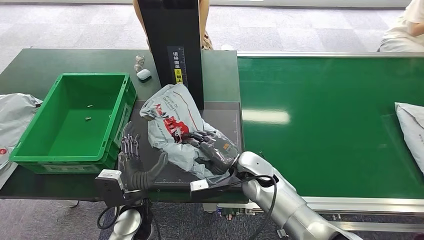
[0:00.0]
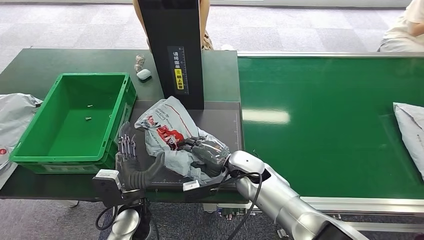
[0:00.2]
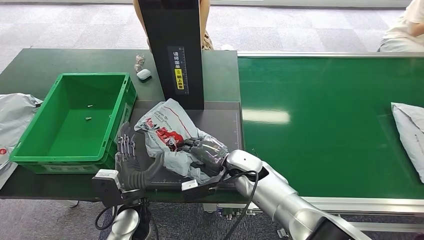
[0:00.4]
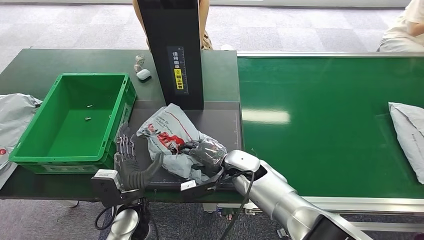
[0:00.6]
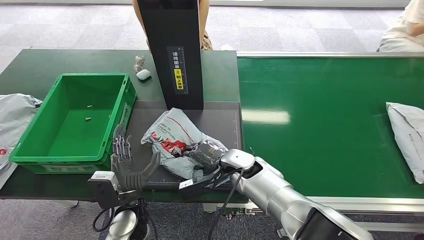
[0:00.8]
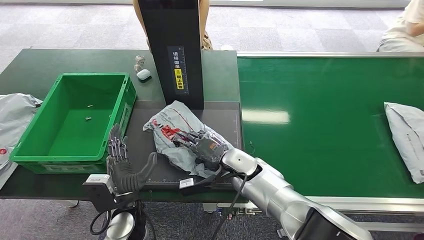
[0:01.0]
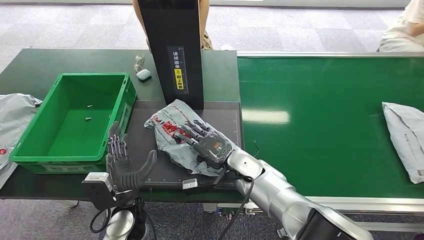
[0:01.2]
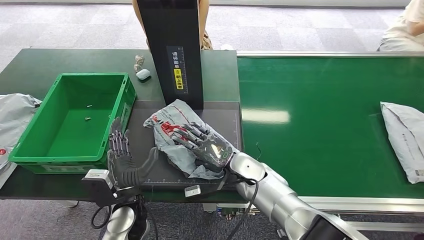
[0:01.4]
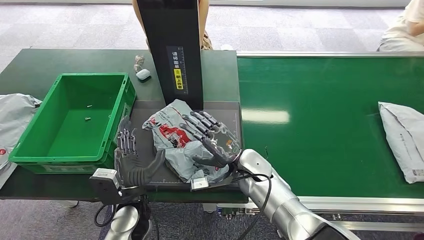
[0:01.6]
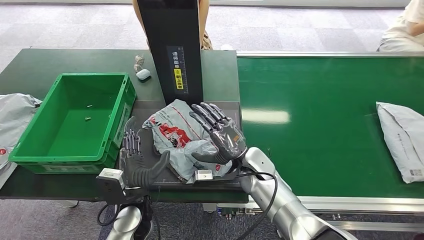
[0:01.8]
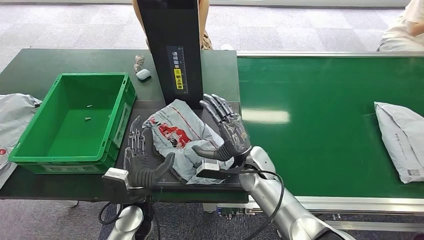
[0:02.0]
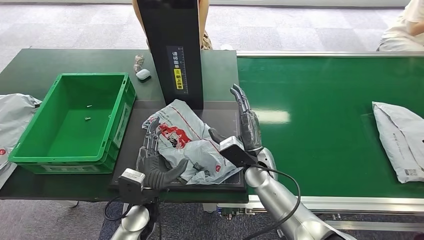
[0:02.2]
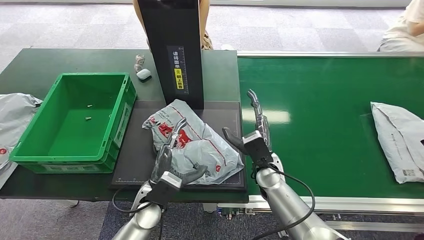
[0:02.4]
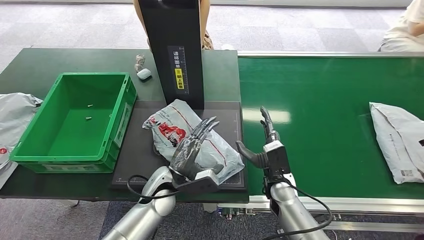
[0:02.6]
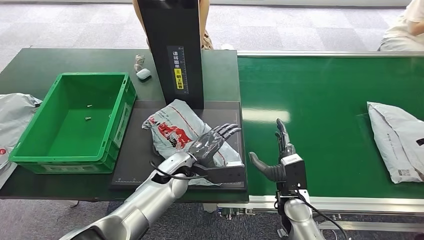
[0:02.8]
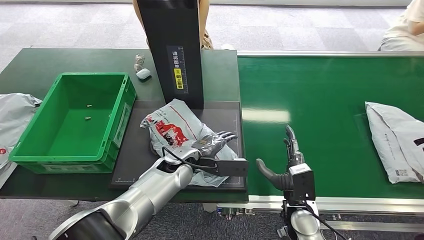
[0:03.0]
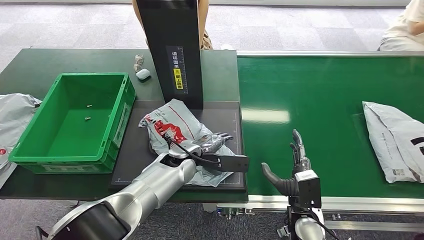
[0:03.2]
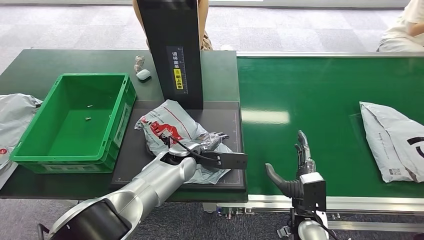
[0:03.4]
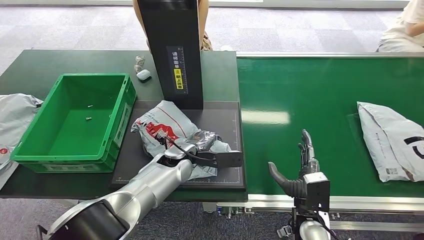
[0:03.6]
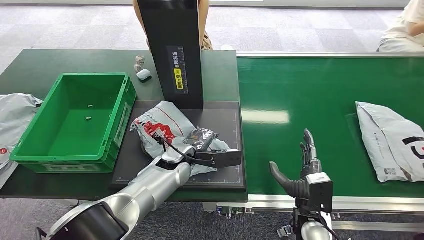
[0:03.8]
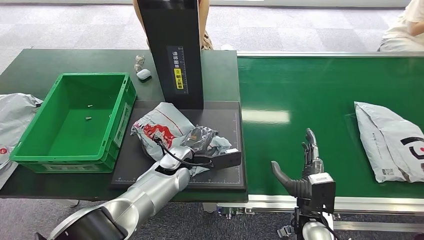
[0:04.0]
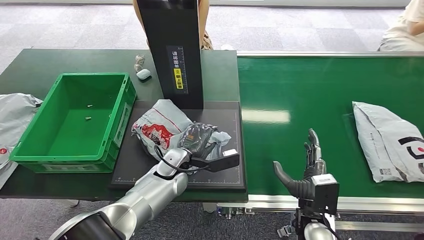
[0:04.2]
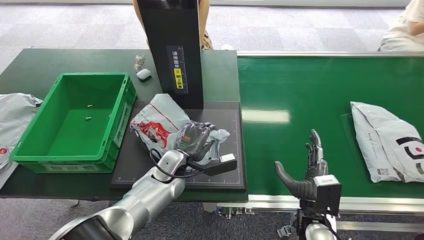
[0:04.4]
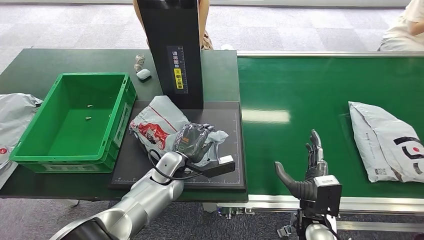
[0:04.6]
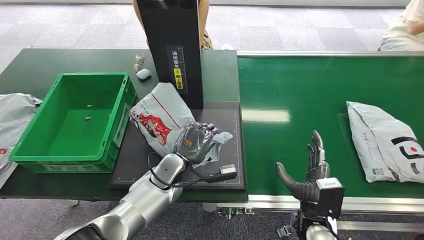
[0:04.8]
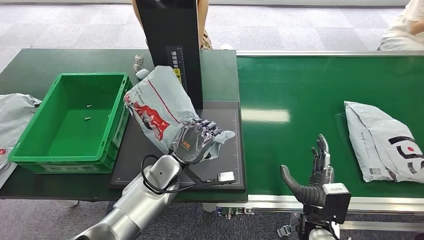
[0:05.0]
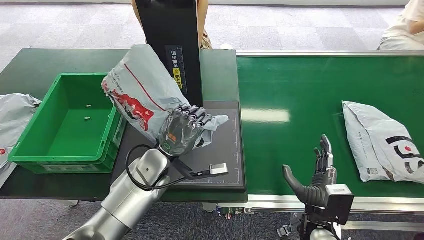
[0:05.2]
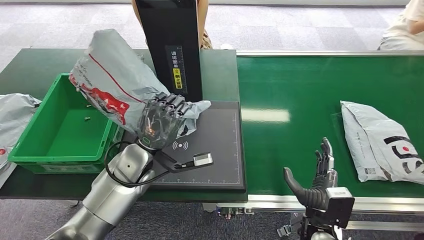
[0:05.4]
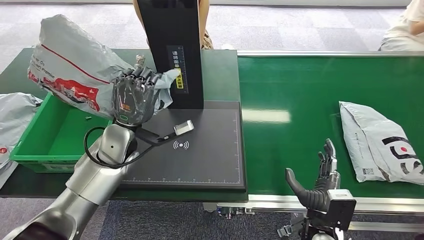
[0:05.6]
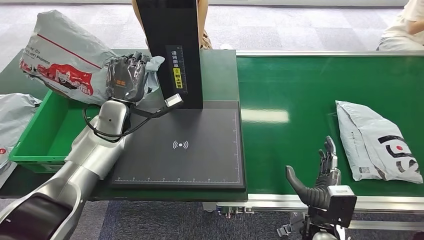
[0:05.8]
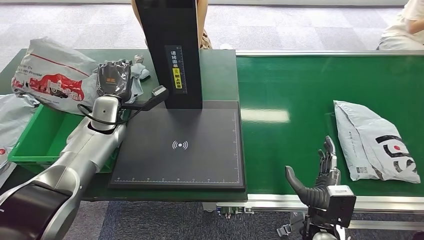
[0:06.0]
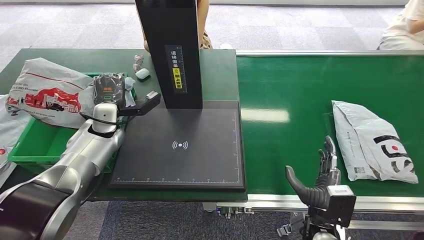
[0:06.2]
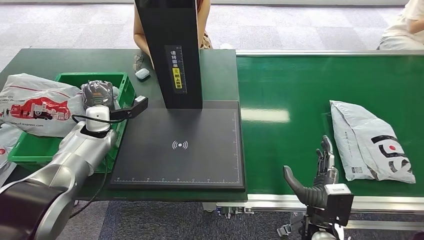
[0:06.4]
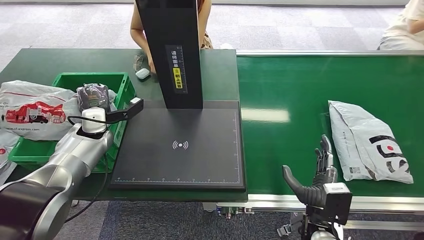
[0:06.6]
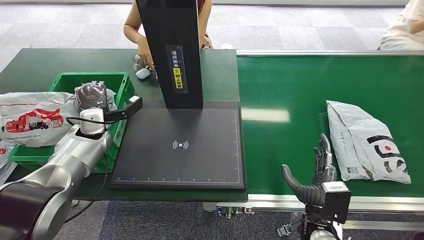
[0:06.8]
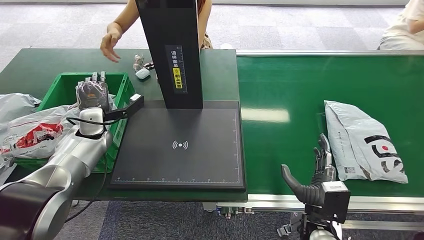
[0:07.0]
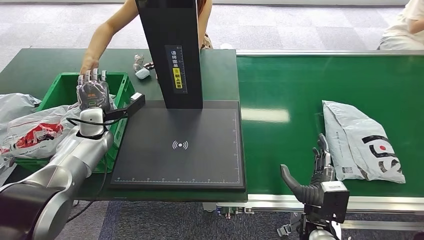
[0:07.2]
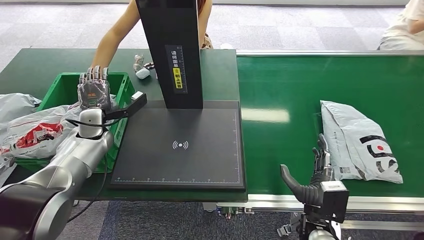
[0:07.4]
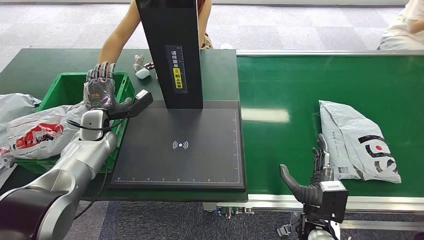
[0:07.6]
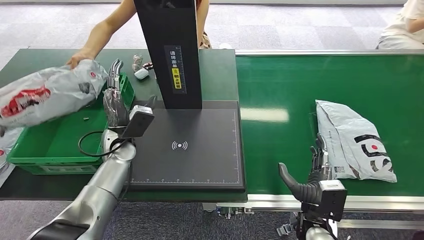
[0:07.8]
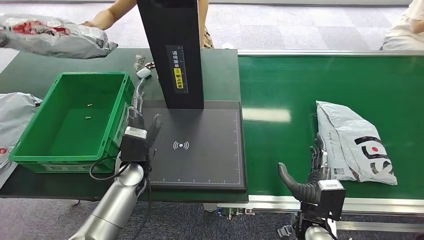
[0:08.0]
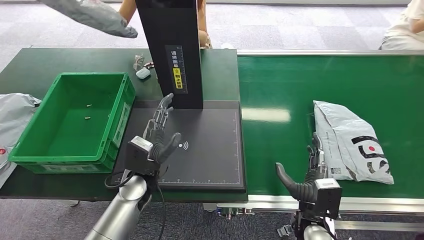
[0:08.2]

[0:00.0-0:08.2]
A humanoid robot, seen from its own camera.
Step, 0:00.0 to 0:02.6: Place the package onto the inbound machine.
Step, 0:02.8 to 0:05.2: Pick up the package from the inbound machine.
Step, 0:05.4 to 0:08.2: Place the package into the parcel locker.
0:01.6 to 0:03.2: The left hand goes some 15 cm forward and to the right. Meanwhile the right hand travels backward and to the right by about 15 cm.
0:03.2 to 0:05.0: The left hand moves approximately 5 cm.

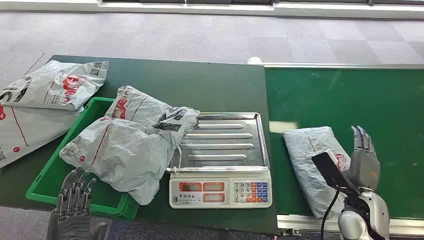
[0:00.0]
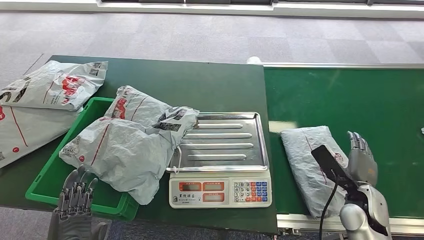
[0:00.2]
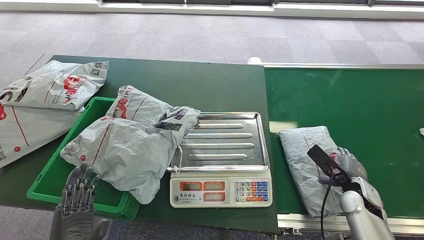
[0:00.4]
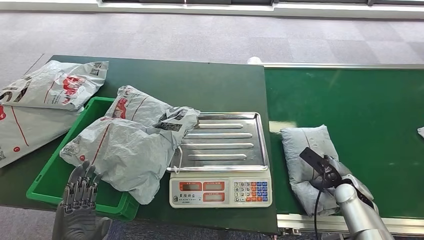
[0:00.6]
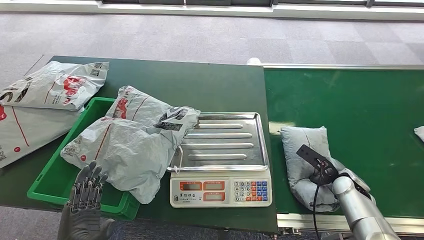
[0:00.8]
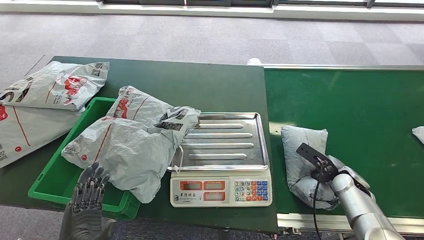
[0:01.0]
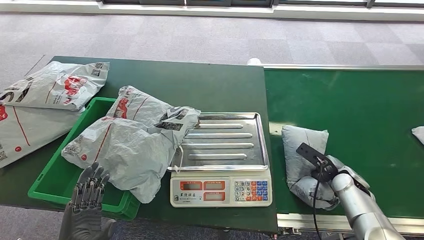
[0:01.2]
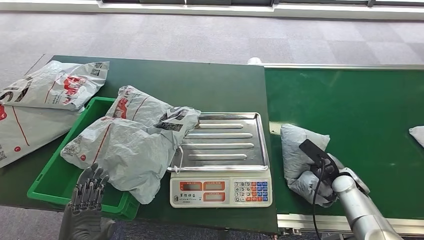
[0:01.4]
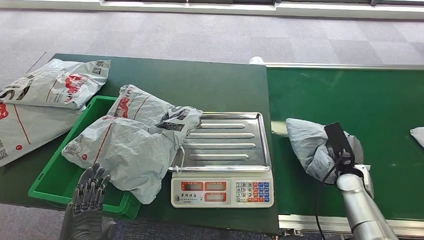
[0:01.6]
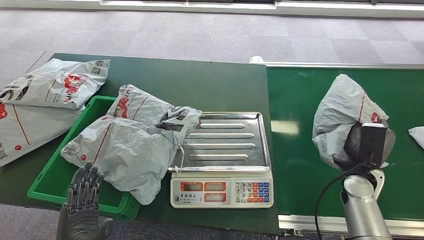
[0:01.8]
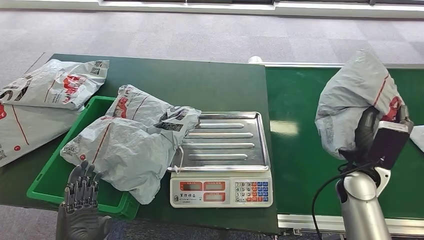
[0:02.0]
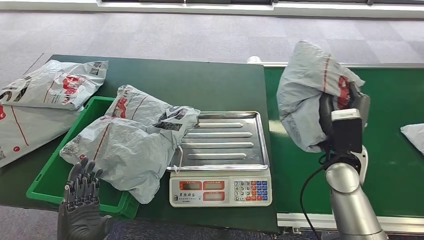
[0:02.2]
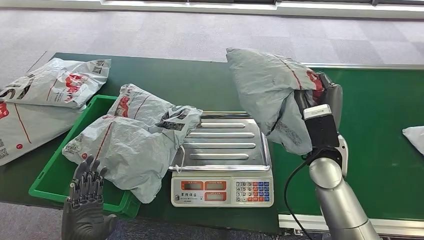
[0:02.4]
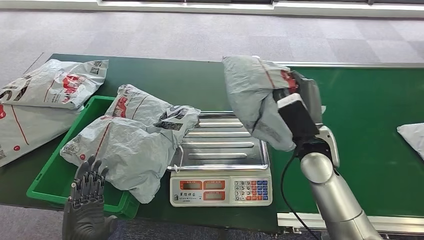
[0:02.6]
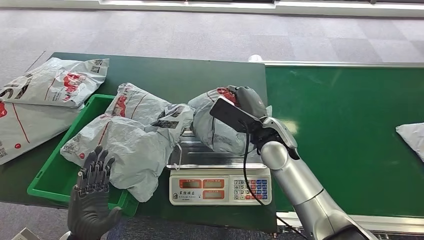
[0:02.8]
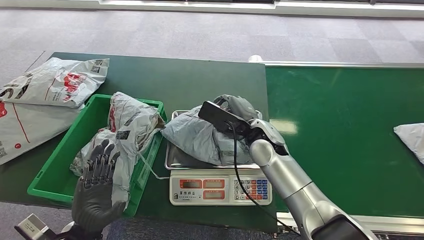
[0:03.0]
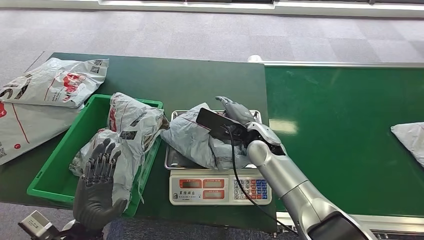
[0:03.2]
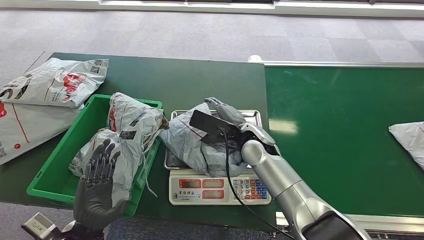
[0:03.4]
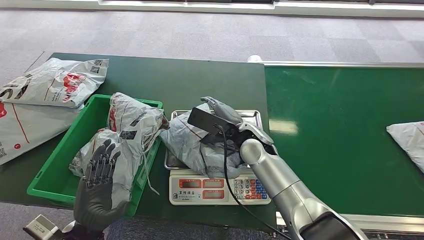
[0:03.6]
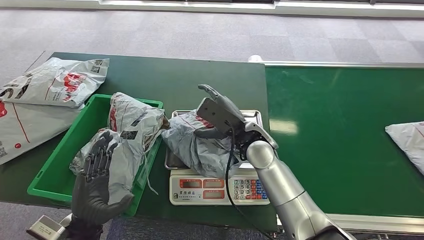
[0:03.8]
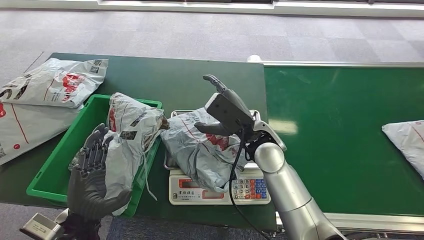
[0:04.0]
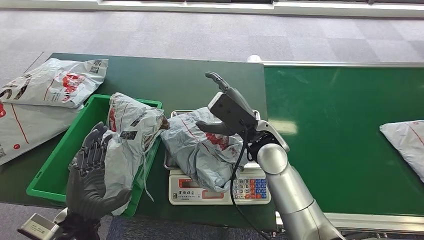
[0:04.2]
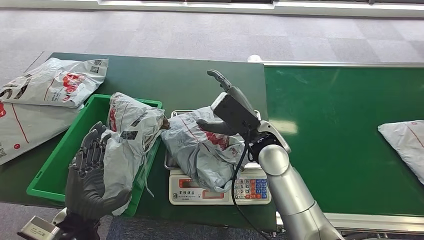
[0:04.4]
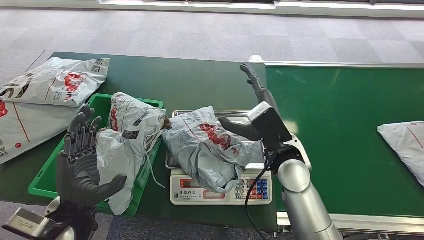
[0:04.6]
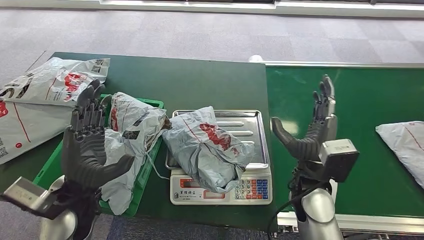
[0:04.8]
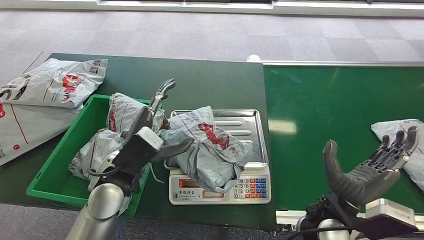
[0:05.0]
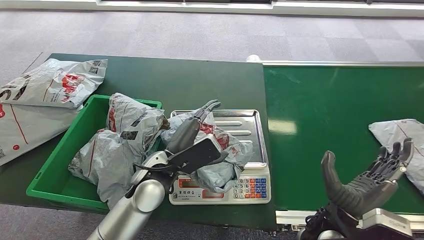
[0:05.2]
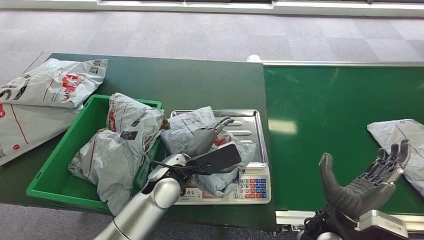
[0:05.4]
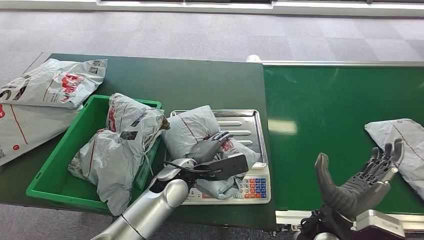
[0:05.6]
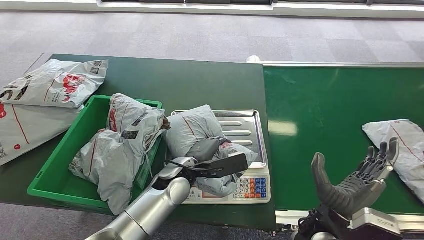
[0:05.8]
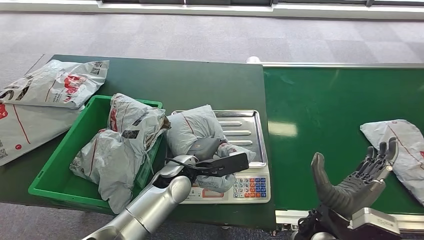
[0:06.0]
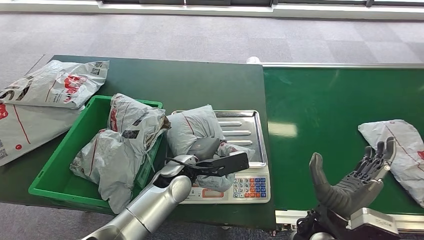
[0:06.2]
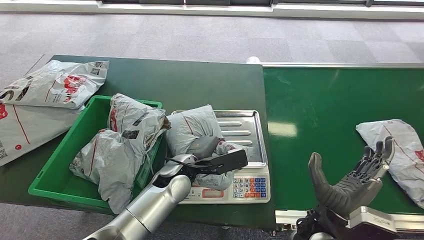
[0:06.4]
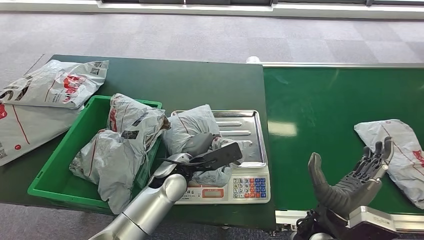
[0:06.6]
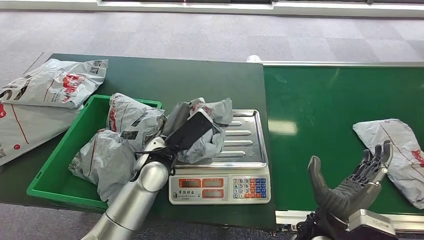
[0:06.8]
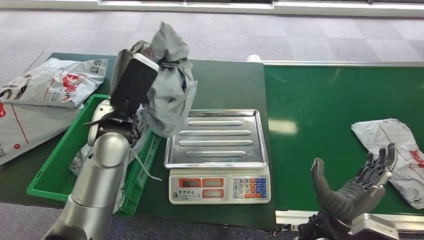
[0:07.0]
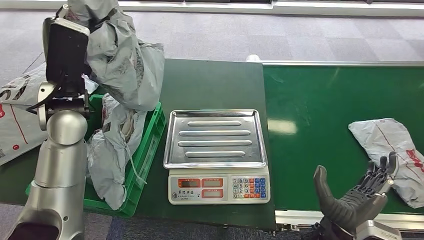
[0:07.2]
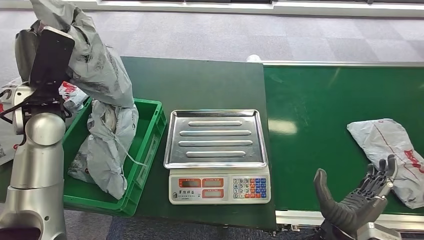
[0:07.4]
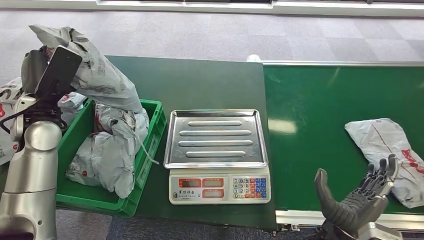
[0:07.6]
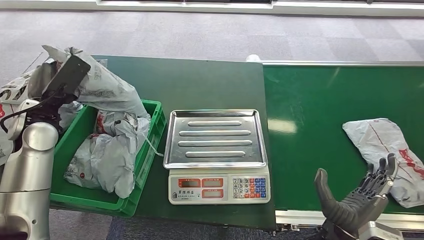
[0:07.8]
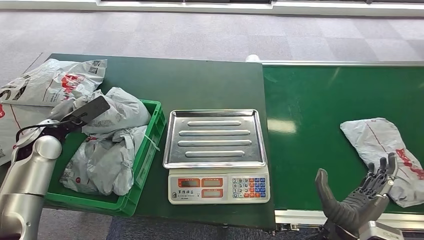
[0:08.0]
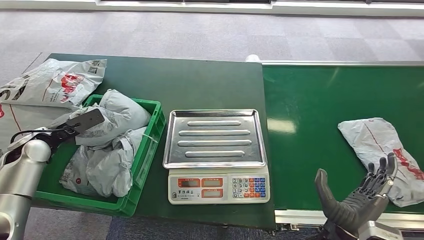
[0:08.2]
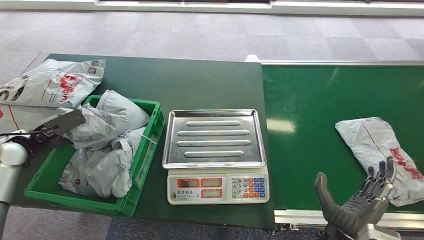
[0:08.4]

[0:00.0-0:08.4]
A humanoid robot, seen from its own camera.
Step, 0:00.0 to 0:02.0: Pick up the package from the conveyor belt.
Step, 0:02.2 to 0:03.8: Place the package onto the inbound machine.
Step, 0:04.0 to 0:07.4: Pick up the package from the inbound machine.
Step, 0:07.6 to 0:08.4: Place the package into the parcel locker.
